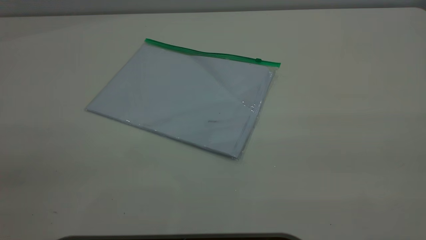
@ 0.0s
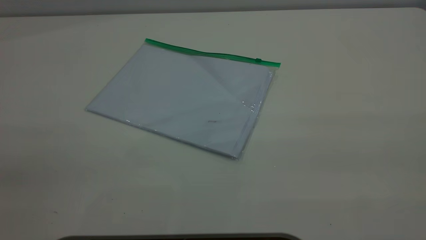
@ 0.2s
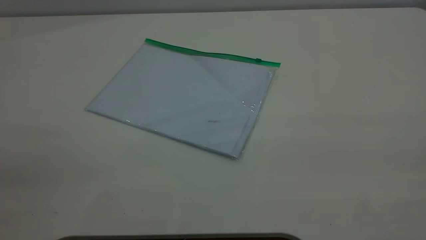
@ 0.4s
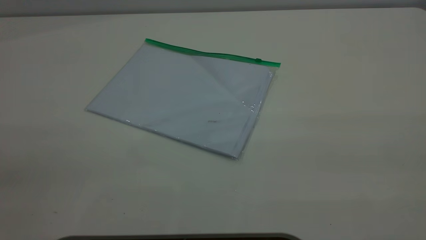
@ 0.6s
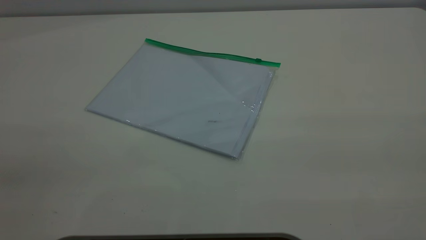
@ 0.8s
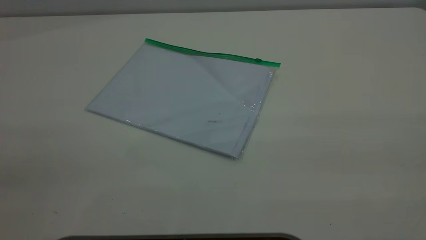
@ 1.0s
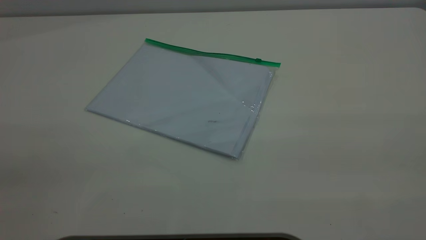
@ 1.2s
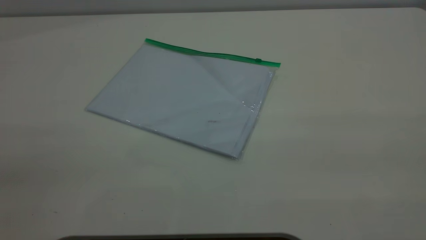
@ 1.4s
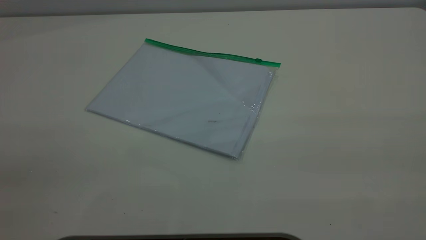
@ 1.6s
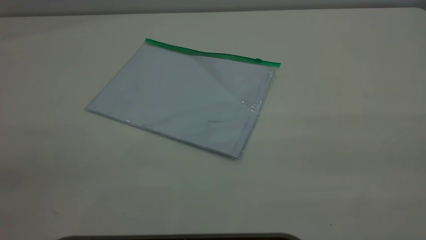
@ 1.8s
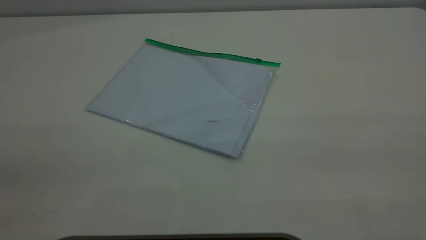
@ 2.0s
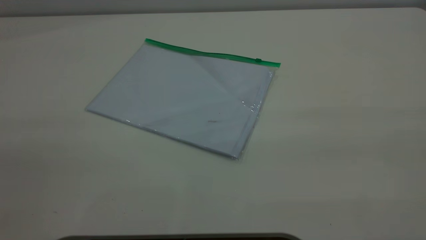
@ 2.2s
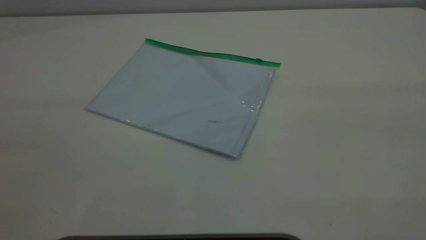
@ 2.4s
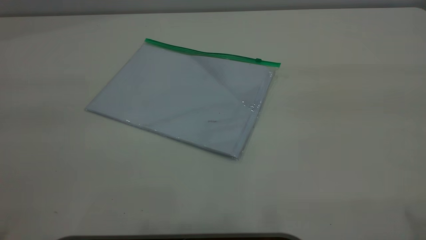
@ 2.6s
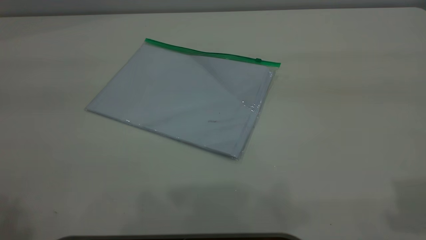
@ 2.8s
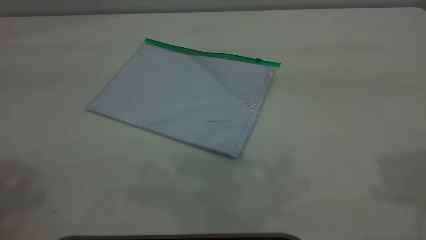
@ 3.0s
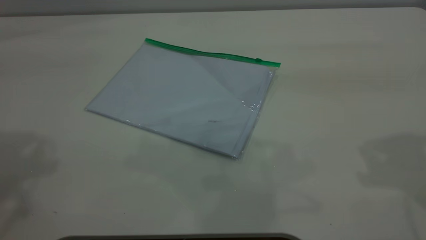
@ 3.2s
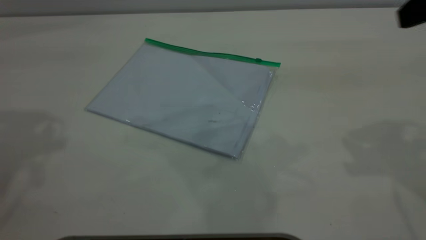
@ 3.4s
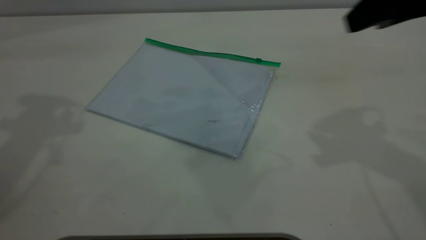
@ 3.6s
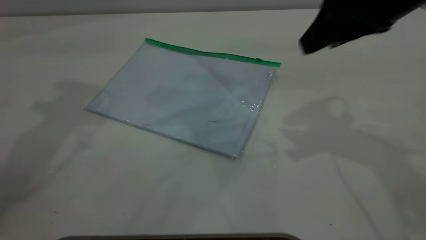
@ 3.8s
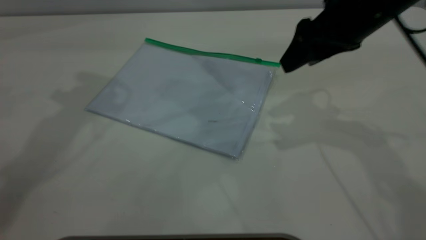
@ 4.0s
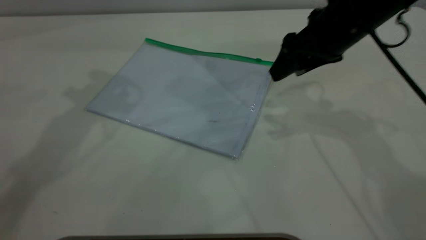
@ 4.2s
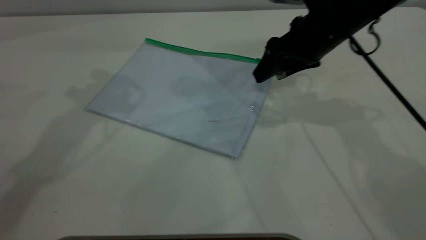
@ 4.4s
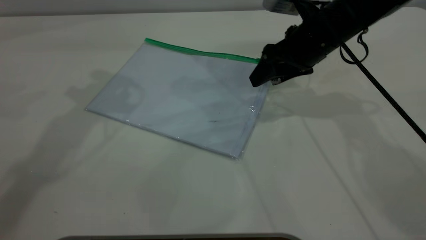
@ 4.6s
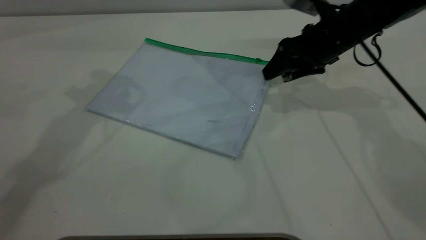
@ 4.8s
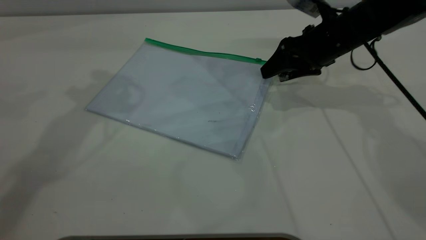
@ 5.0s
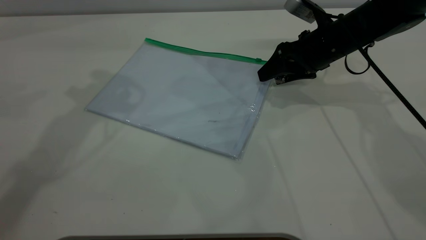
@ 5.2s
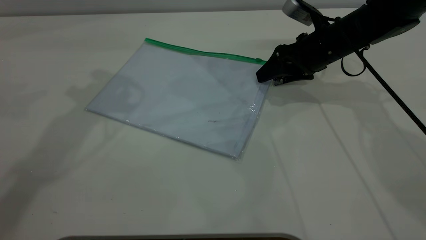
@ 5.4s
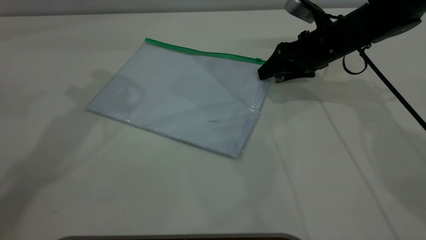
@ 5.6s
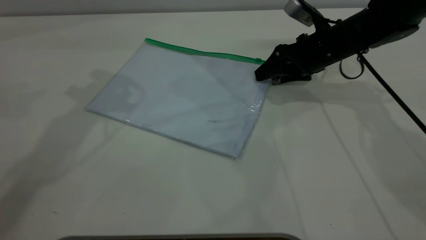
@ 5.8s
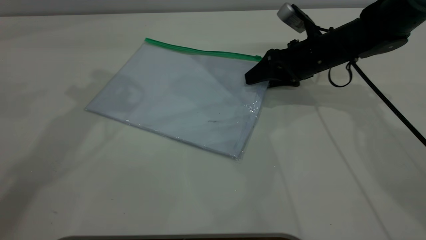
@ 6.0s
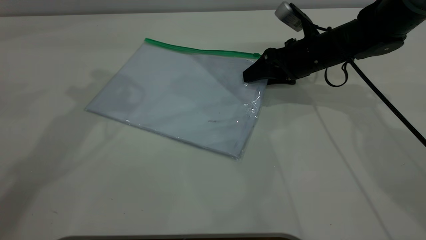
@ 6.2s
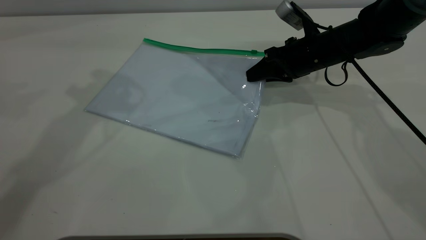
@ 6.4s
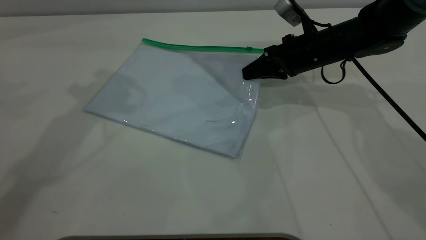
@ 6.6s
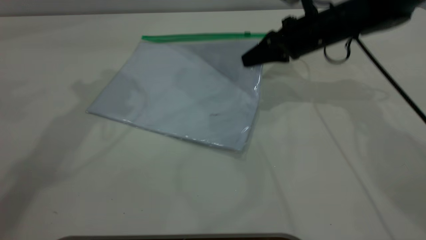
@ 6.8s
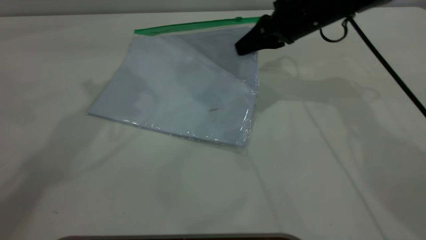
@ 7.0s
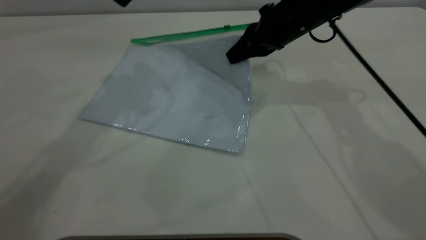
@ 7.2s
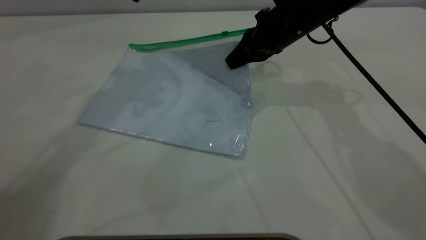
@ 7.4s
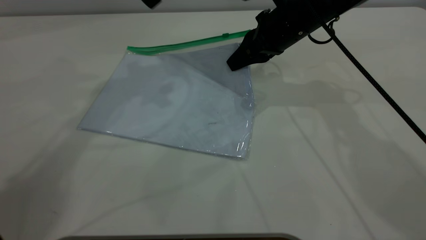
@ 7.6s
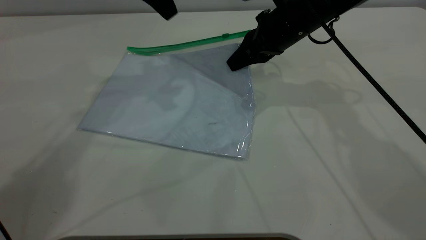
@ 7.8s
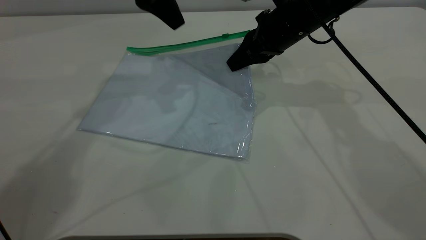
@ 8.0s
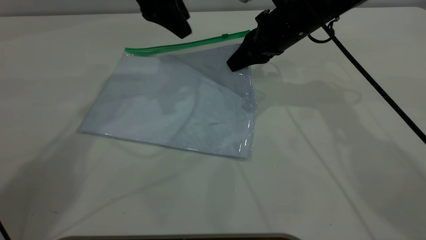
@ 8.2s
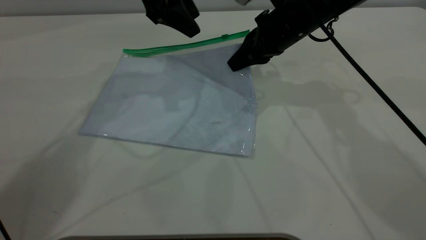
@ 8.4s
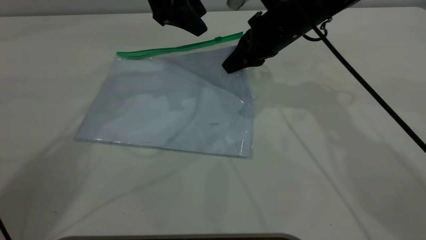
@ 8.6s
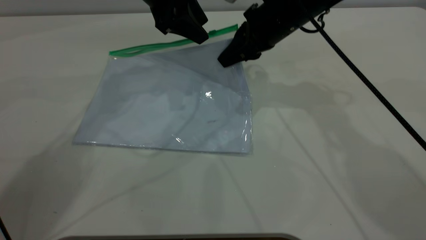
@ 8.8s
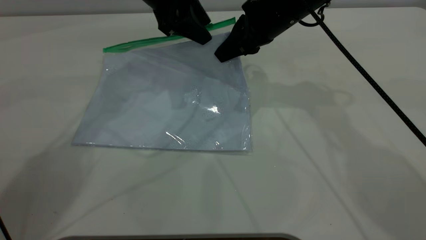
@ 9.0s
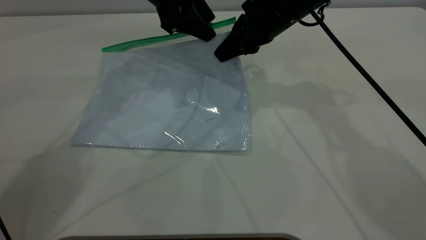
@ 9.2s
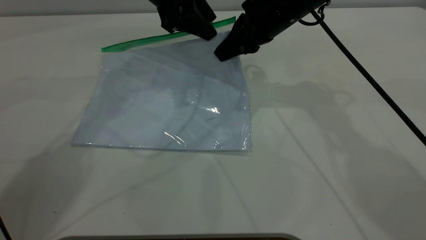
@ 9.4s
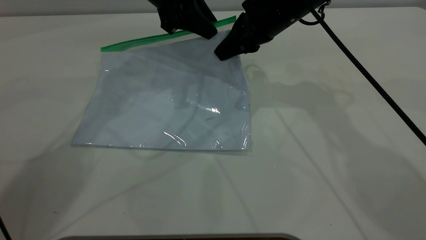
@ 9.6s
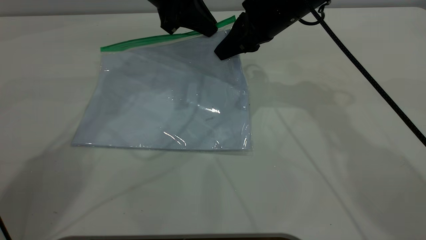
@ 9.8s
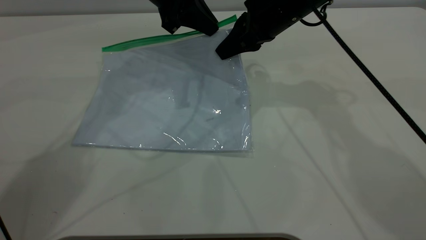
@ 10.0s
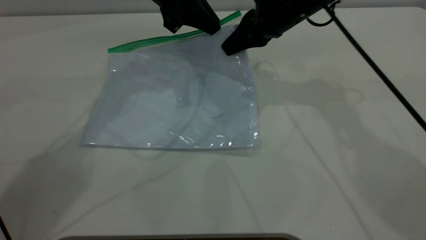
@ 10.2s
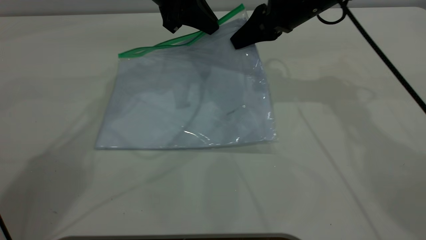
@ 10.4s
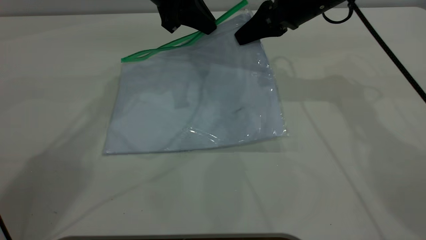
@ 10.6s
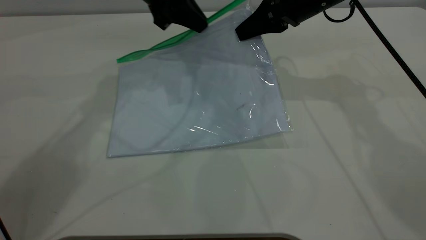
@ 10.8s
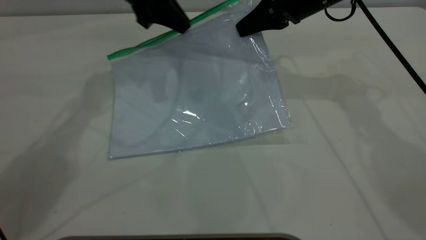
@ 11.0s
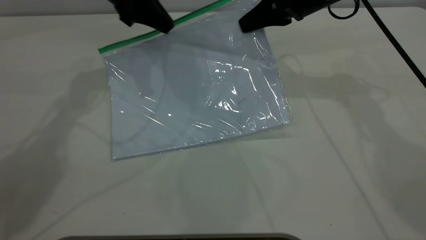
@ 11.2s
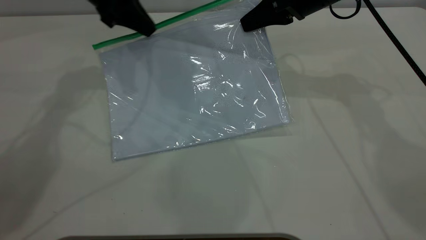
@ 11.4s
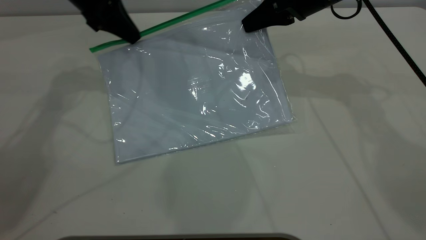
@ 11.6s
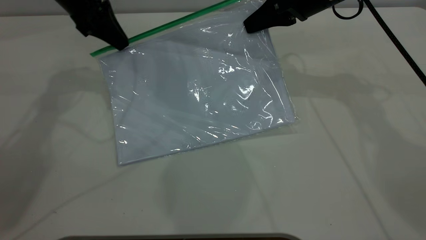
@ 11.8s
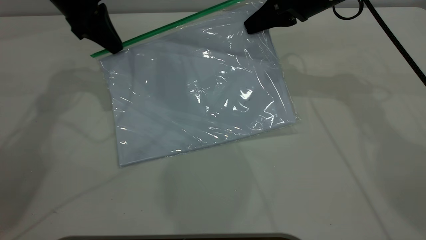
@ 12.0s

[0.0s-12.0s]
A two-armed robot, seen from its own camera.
Step, 0.0s to 7.4s: Pick up the transparent plastic bag with the right gripper.
0.0s to 1.6s: The two grippers keep their place.
3.0s to 4.4s: The left gripper shifts some 20 cm forward, to the right and downward; the right gripper travels downward, forward and to the left by about 30 cm.
4.4s to 6.0s: The right gripper goes some 10 cm downward.
6.0s to 7.6s: The left gripper shifts about 10 cm to the right and forward. The right gripper travels upward and to the left by roughly 10 cm, and closes up.
7.6s to 9.0s: The left gripper shifts about 10 cm downward.
9.0s to 10.4s: The left gripper closes.
10.4s to 12.0s: The left gripper moves to the left, some 15 cm.

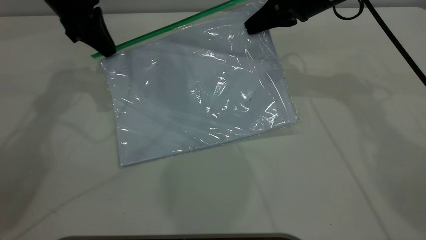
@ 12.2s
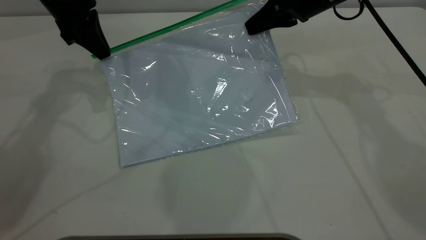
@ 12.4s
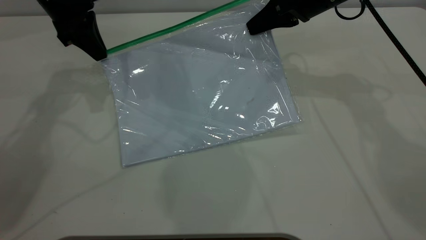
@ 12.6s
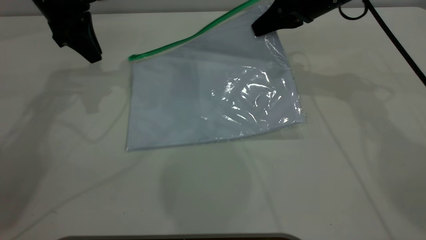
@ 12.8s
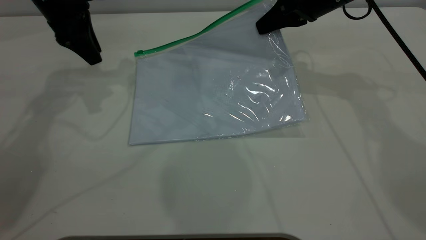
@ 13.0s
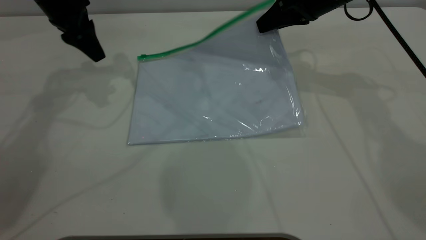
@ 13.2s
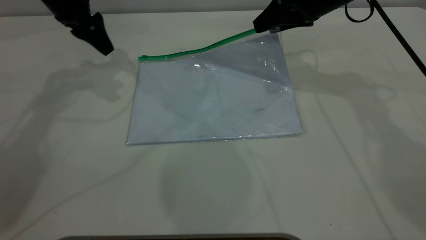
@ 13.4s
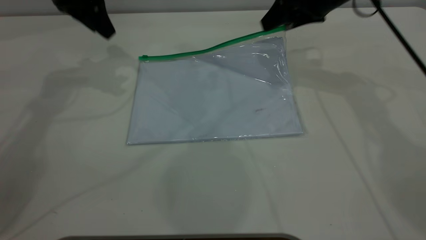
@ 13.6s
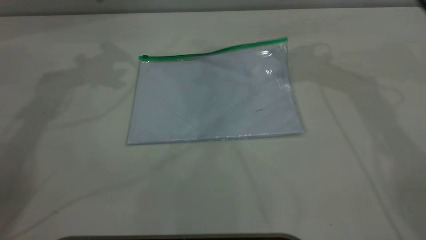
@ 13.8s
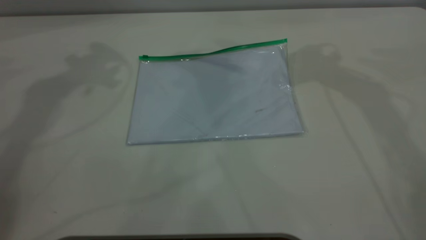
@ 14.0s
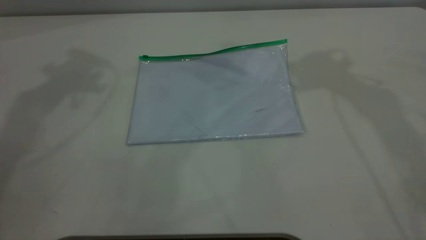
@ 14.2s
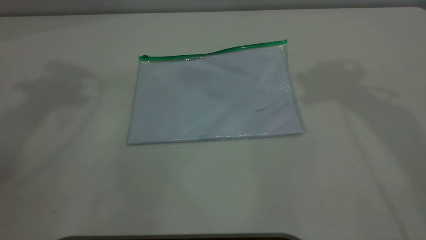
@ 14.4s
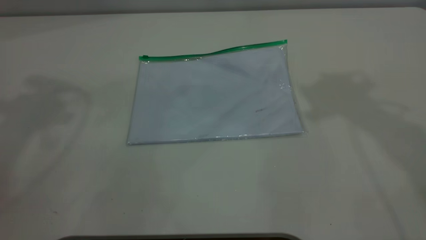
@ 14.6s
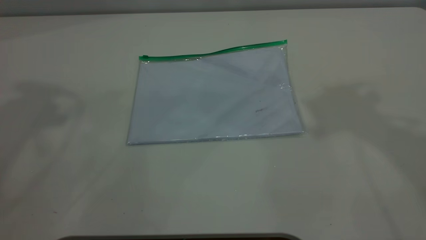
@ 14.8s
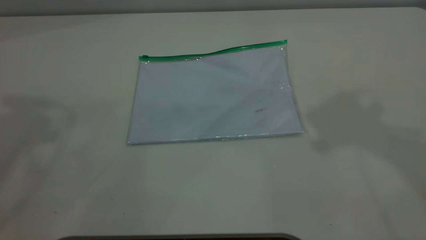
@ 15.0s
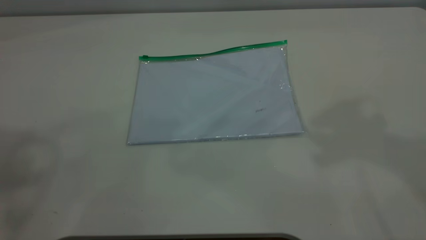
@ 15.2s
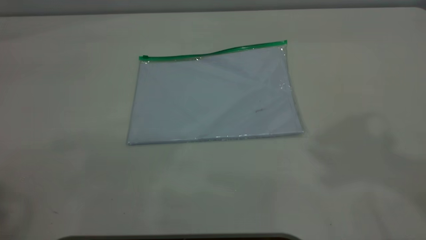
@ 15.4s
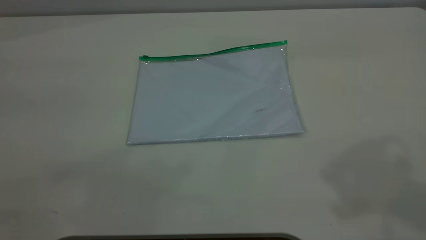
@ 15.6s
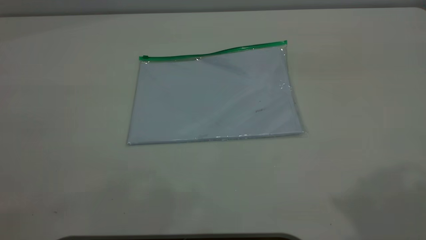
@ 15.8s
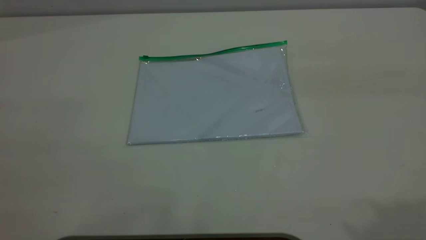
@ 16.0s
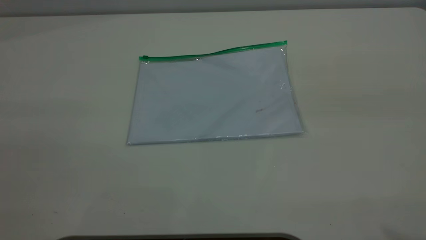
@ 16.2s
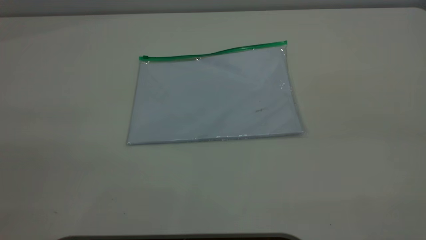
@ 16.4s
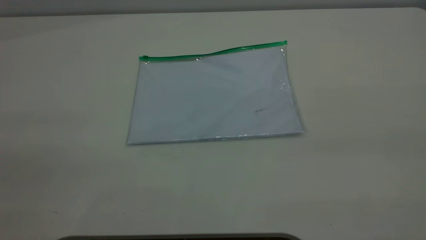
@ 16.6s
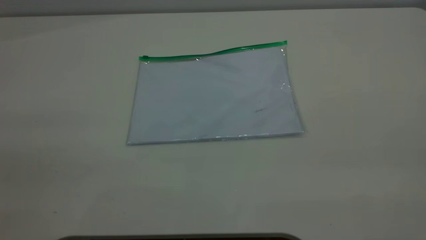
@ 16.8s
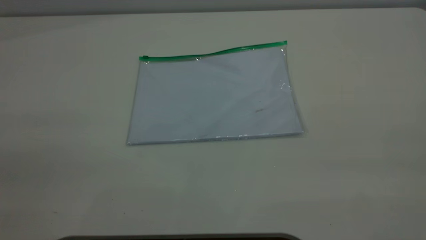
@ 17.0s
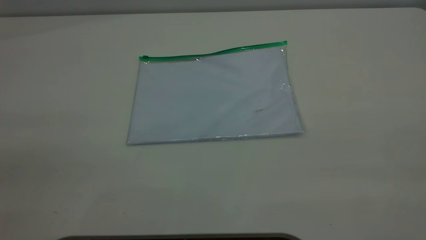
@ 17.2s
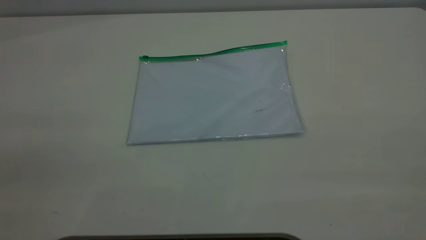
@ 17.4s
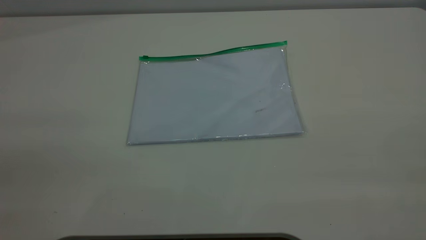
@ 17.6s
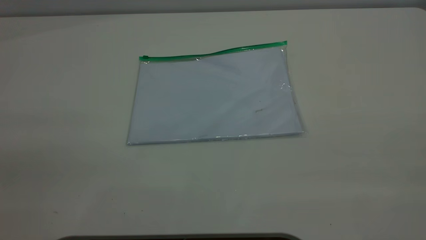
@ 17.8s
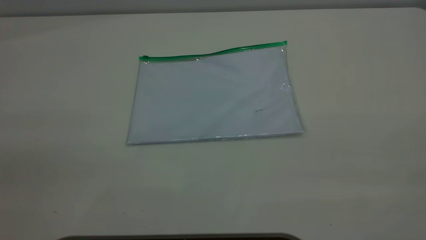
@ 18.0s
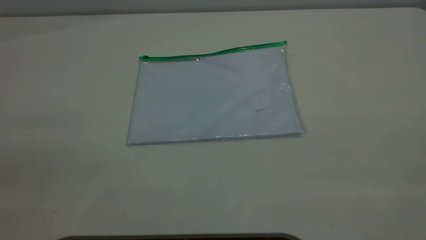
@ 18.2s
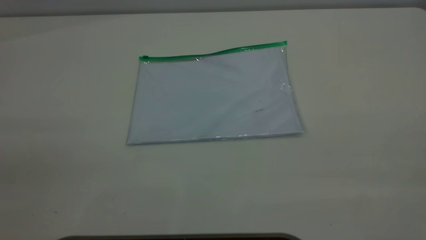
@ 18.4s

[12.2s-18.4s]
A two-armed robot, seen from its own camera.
Step, 13.2s to 15.2s: Place the transparent plastic bag.
12.2s to 13.8s: Both grippers travel together upward, approximately 10 cm. The left gripper opens up; the right gripper opens its fingers.
